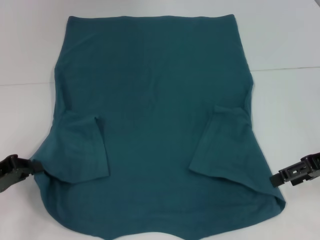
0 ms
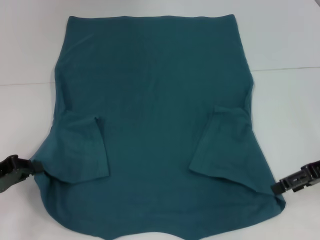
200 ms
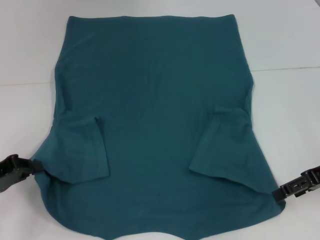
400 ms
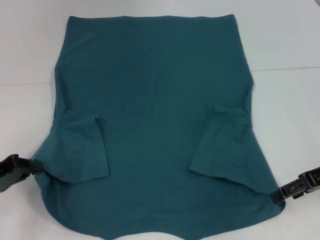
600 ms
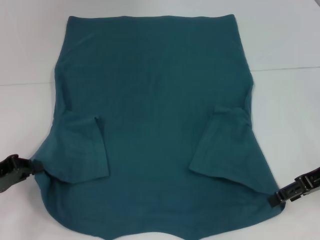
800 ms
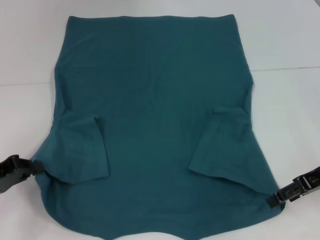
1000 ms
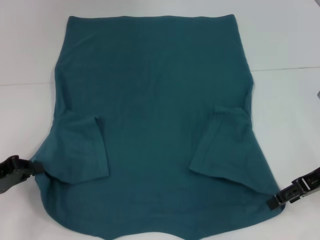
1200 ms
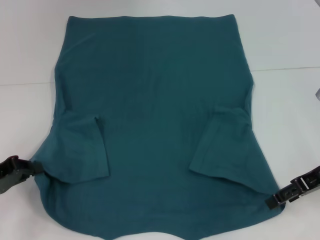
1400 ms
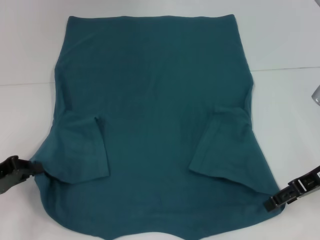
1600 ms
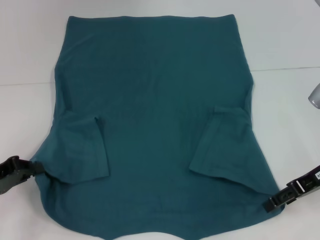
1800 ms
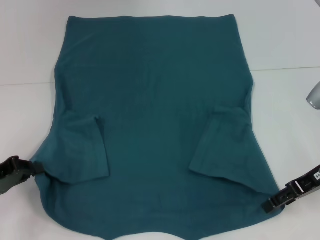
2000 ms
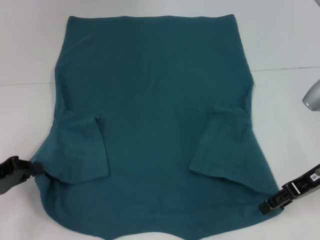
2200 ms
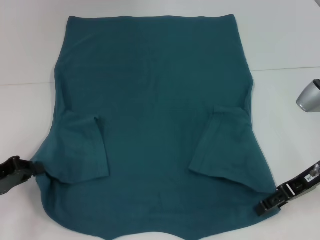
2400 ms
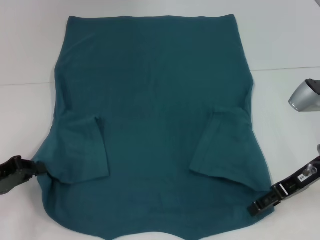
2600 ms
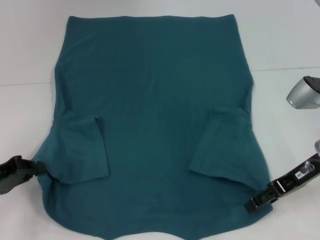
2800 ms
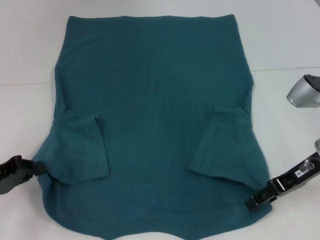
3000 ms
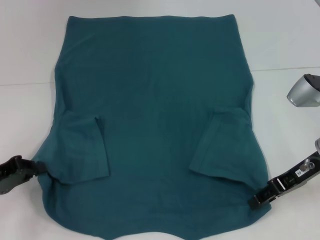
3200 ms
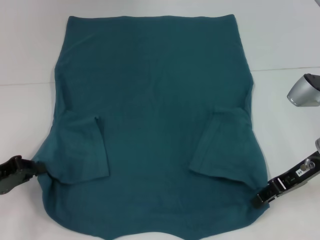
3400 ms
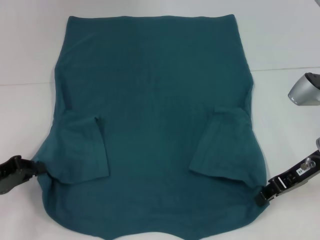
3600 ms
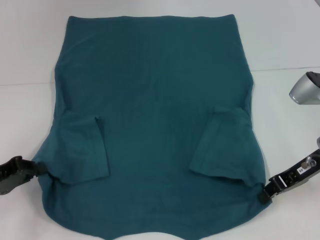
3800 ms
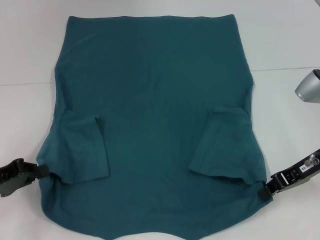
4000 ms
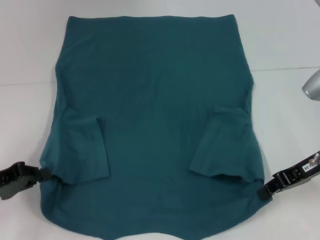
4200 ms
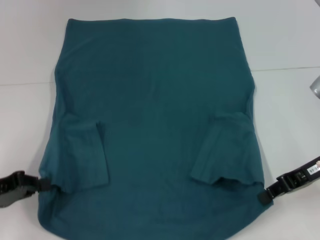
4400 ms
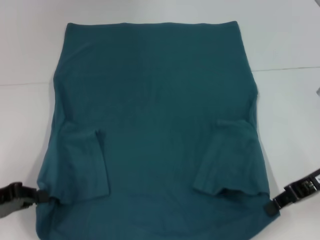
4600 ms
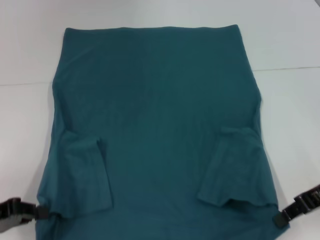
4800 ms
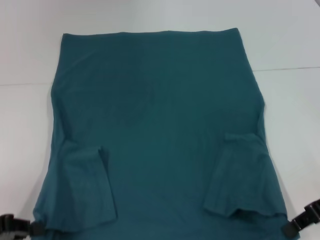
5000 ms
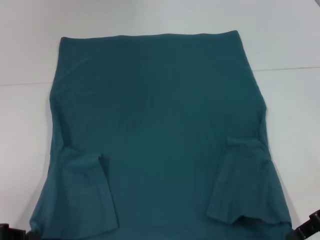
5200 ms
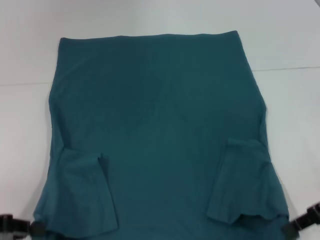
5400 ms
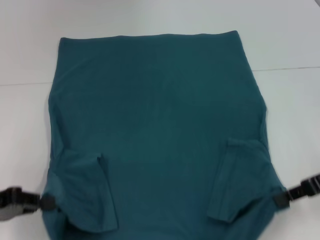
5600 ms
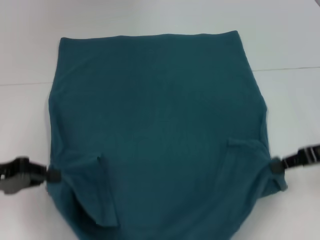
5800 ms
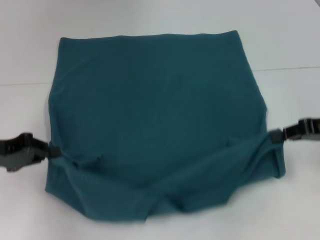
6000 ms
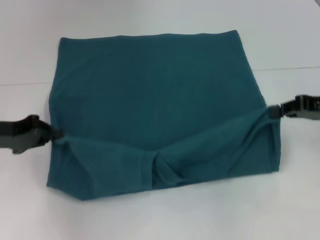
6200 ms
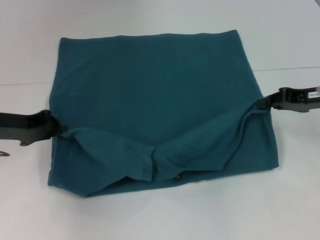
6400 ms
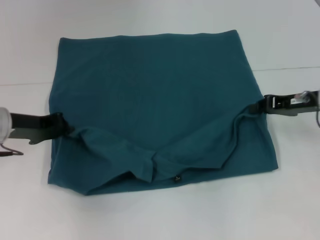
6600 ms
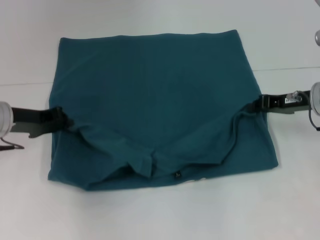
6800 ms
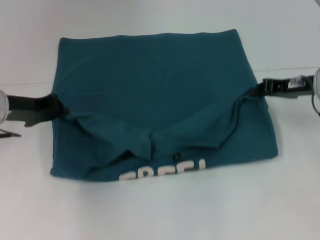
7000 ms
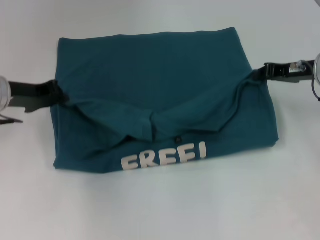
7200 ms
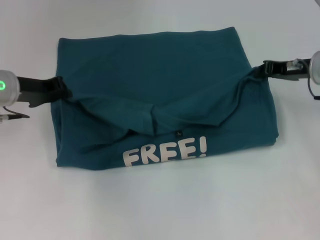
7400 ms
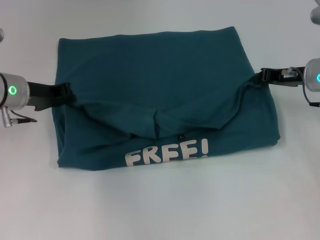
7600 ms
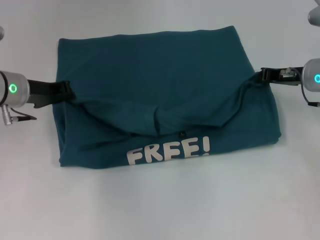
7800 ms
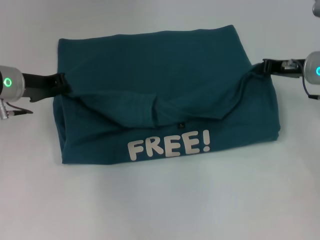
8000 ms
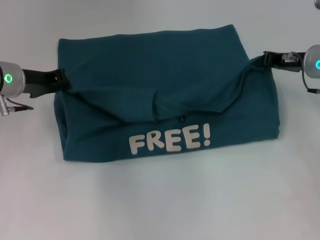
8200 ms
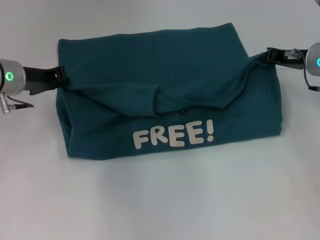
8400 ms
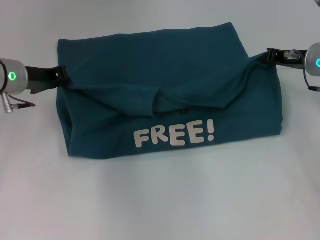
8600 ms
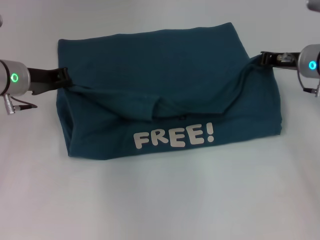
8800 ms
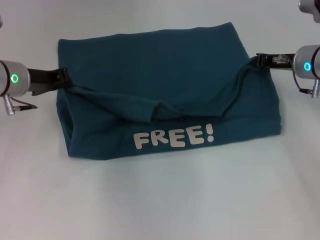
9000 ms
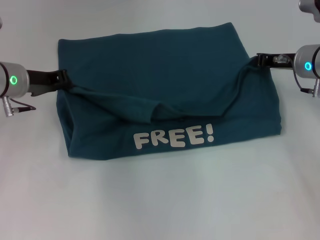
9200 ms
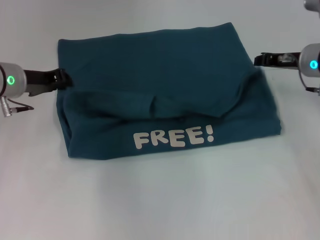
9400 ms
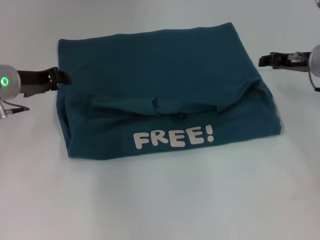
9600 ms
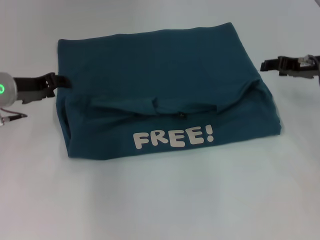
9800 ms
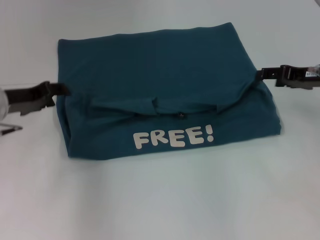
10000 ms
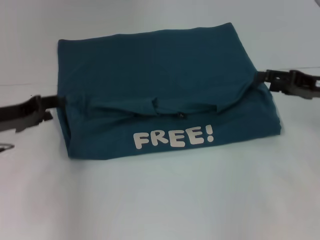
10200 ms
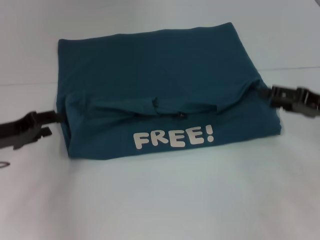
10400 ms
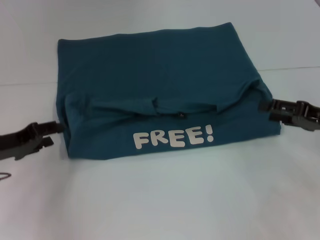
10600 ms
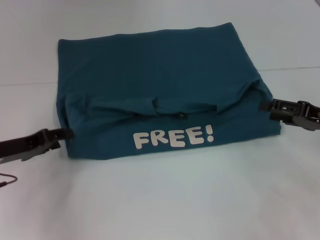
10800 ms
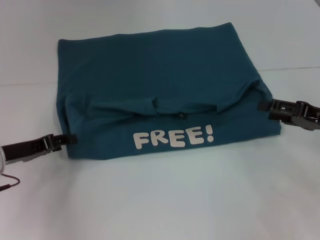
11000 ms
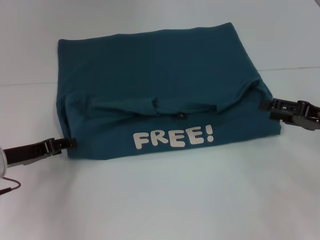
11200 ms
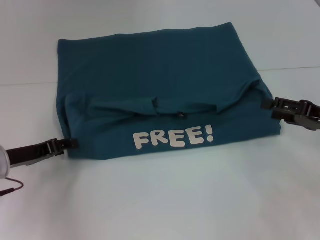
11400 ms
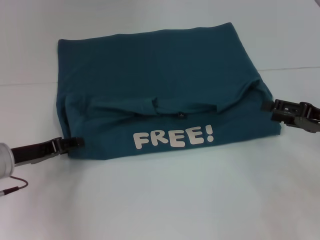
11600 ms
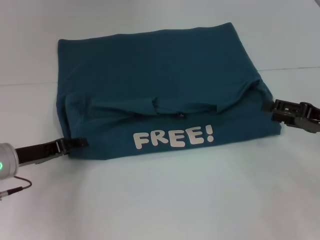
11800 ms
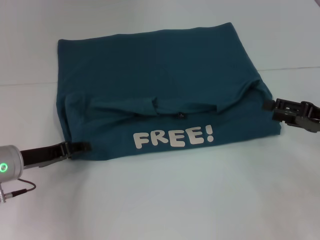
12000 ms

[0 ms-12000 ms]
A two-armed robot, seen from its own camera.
Step, 0 ms to 3800 ms: Grab the bottom right corner with your right hand.
Step, 4000 ms to 5200 ms: Pull the clothes with your left hand.
Step, 4000 ms to 5200 ms: Pull the clothes with your right hand.
Step, 5400 ms to 9400 ms: Fold the clothes to the left.
Step, 5400 ms to 9400 ms: Fold the clothes to the right.
0 ms to 1600 ms: The grippers stay close to where they were, moving slightly.
1600 ms to 3000 ms: The grippers stay close to where they were, moving slightly.
3000 ms to 4400 ms: The right gripper closes up.
4400 ms to 6000 ms: The right gripper changes place by approximately 5 cm. The left gripper moves some 5 cm.
6000 ms to 7600 ms: The right gripper shifts roughly 10 cm forward and to the left. The left gripper moves forward and to the right, roughly 15 cm.
7600 ms to 9000 ms: The grippers move only a little.
9000 ms to 10400 ms: The right gripper is displaced backward and to the right by about 15 cm, and opens, while the left gripper is displaced backward and to the left by roughly 10 cm, and opens.
10400 ms to 12000 ms: The left gripper changes place by about 5 cm.

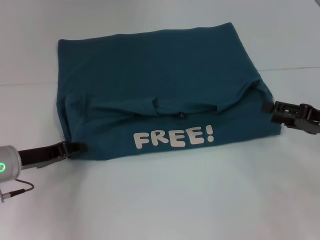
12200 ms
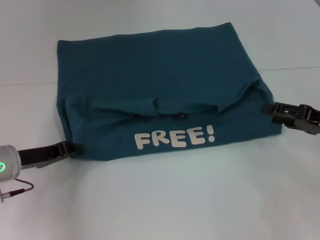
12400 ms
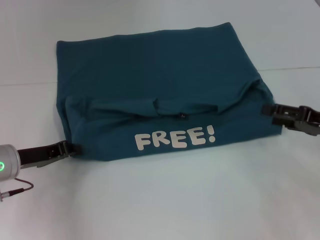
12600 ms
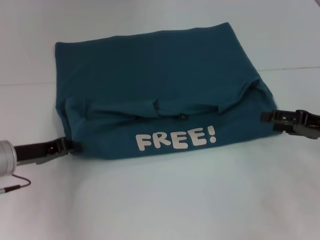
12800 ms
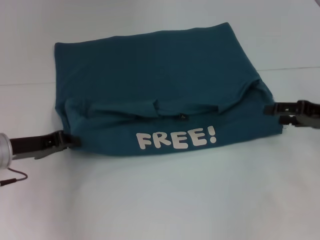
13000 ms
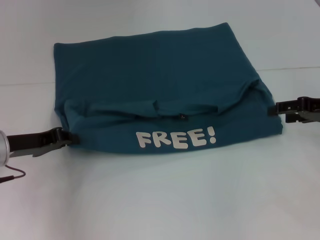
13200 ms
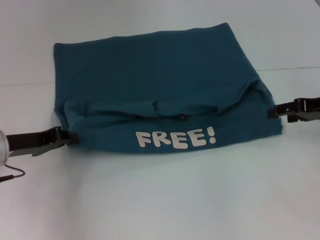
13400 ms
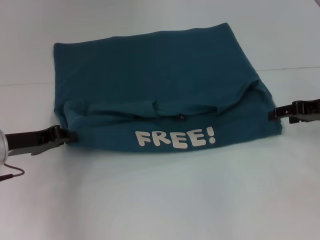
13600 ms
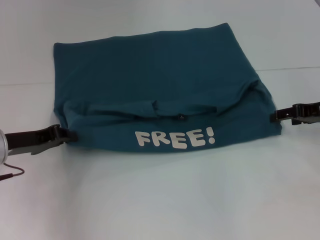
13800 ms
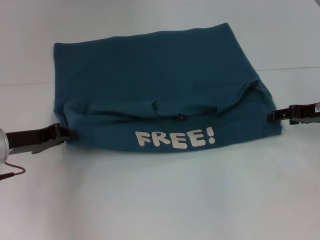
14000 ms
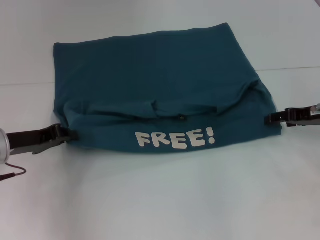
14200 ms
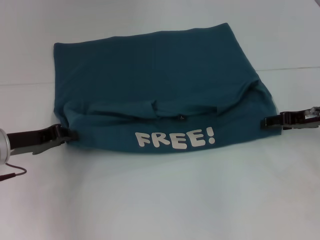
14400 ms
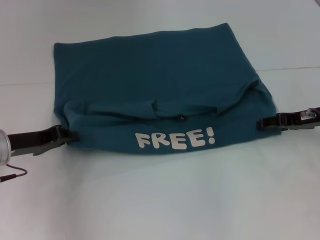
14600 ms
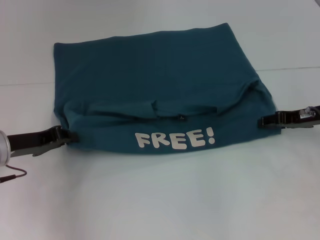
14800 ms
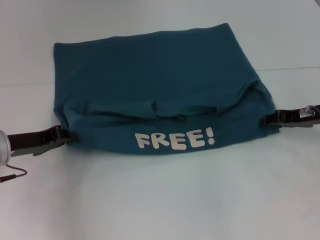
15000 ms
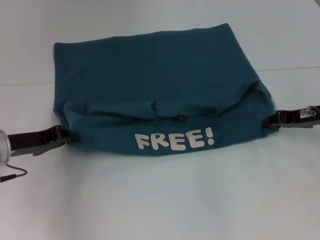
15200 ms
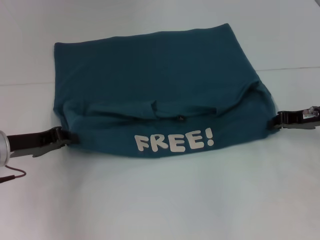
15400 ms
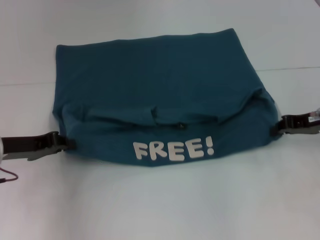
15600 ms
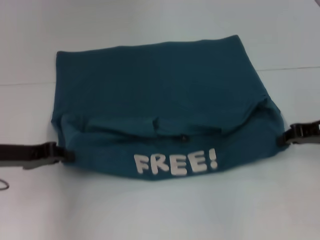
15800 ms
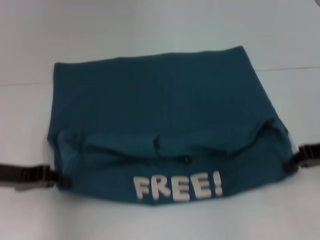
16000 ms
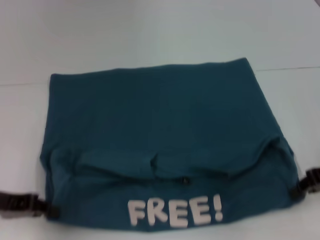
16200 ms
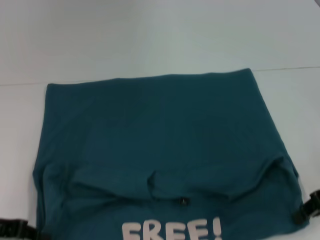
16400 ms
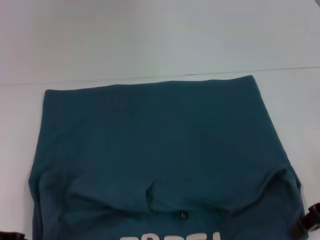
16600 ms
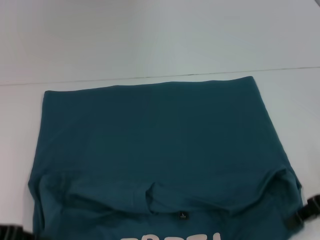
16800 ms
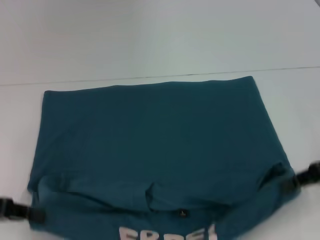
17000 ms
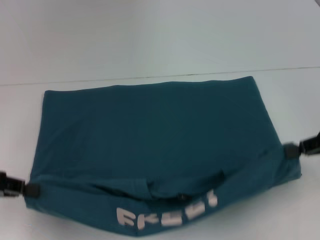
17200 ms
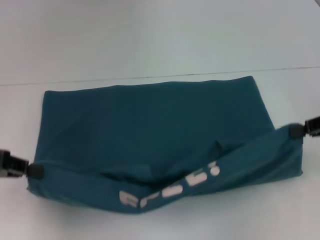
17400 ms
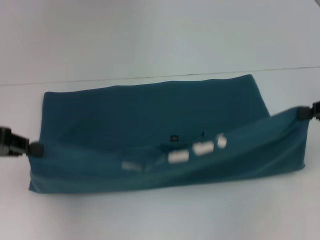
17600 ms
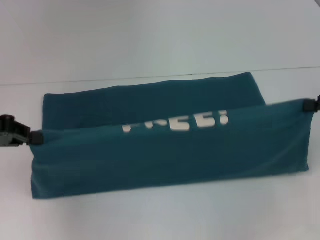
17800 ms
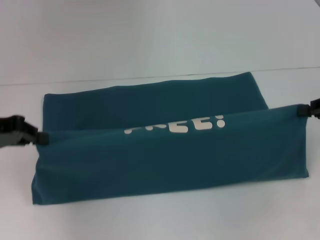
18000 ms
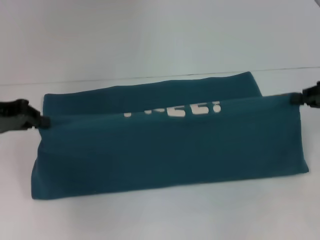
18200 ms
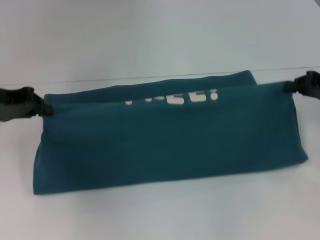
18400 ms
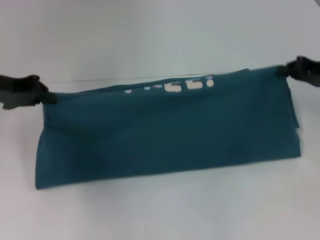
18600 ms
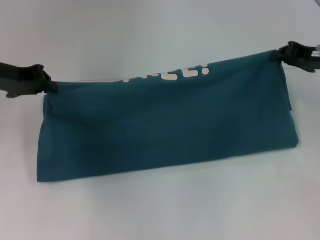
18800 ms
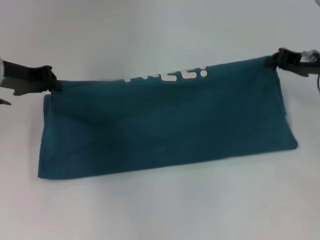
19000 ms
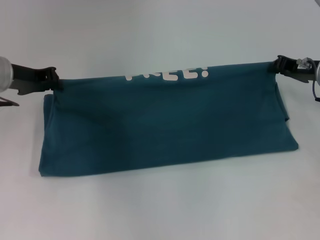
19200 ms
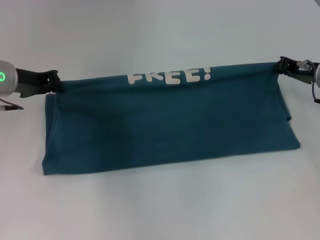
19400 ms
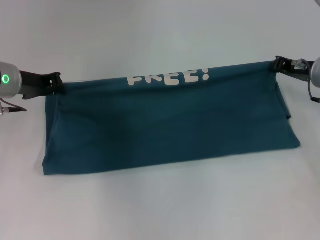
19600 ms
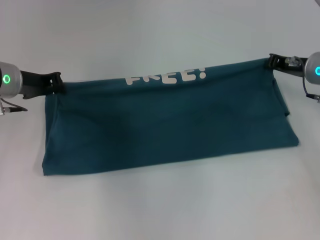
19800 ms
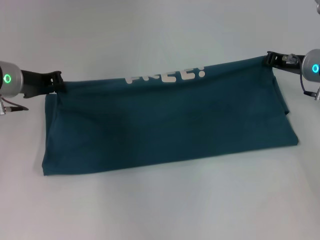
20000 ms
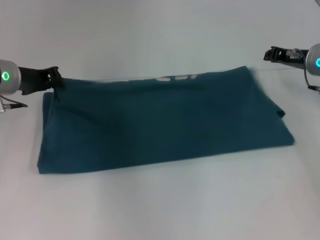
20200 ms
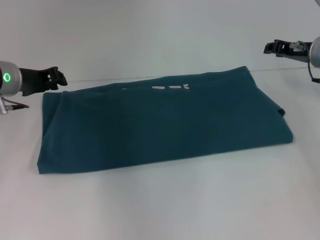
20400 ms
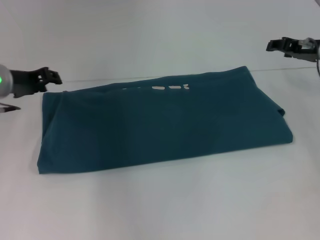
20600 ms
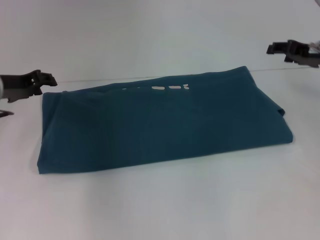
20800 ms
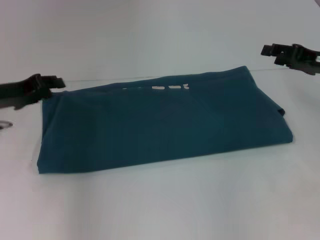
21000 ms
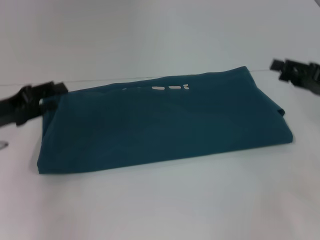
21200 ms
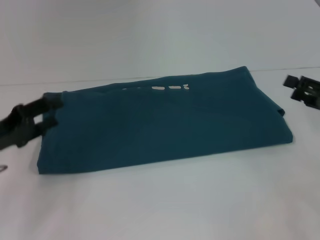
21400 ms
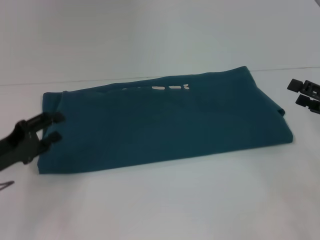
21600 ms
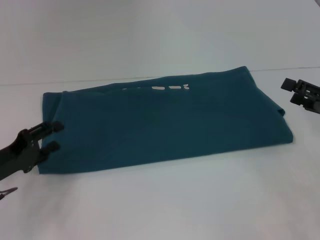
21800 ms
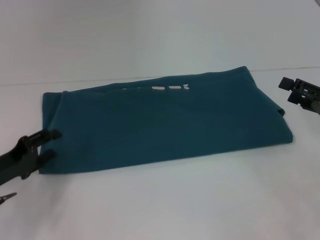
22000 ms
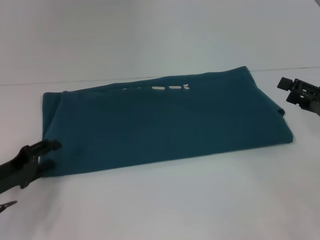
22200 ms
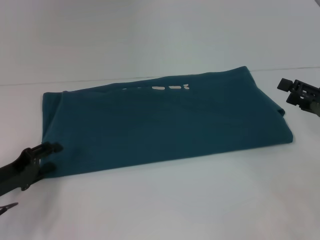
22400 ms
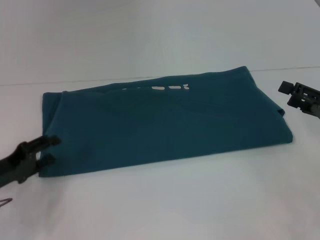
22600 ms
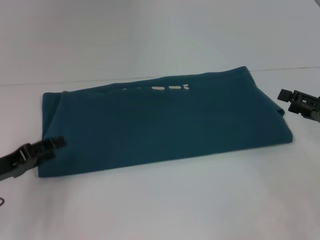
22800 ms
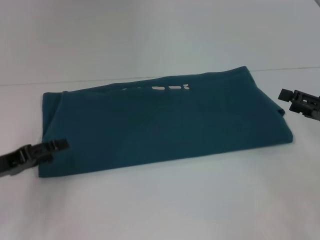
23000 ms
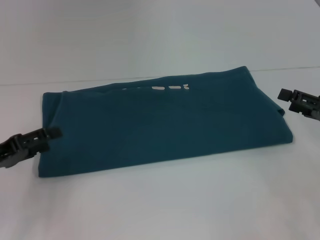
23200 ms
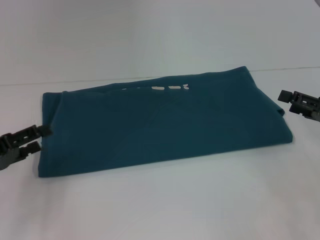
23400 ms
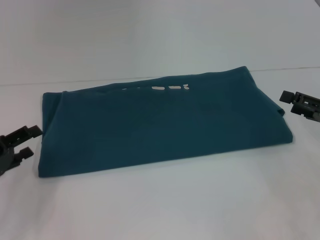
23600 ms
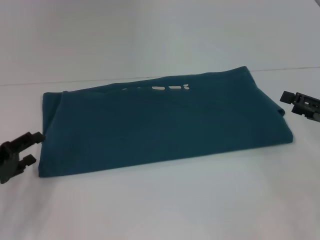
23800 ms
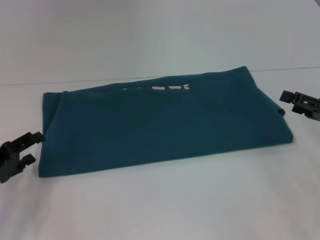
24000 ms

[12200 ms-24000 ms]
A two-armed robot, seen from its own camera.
Step, 12200 ms to 16600 ms: Pull the clothes with your left hand.
Step, 12200 ms to 16600 ms: Pull the clothes with your right hand.
Step, 16800 ms to 20200 ms: Fold the clothes to the right.
12200 ms to 13600 ms: The right gripper goes roughly 5 cm forward; the left gripper closes its fingers.
13600 ms to 15200 ms: The right gripper closes.
15200 ms to 16600 ms: The grippers both shift backward by about 10 cm. The right gripper closes its fingers.
16600 ms to 18200 ms: The right gripper heads forward and to the right, covering about 10 cm; the left gripper is displaced forward and upward by about 15 cm.
18200 ms to 19600 ms: The left gripper is displaced forward and to the right by approximately 10 cm. Meanwhile the right gripper travels forward and to the left by about 10 cm.
19600 ms to 21000 ms: The two grippers go roughly 5 cm backward. The right gripper opens. The left gripper opens its fingers.
21000 ms to 22600 ms: The left gripper goes roughly 15 cm backward and downward. Meanwhile the right gripper goes roughly 10 cm backward.
